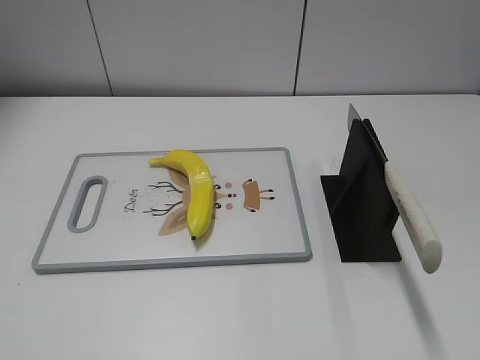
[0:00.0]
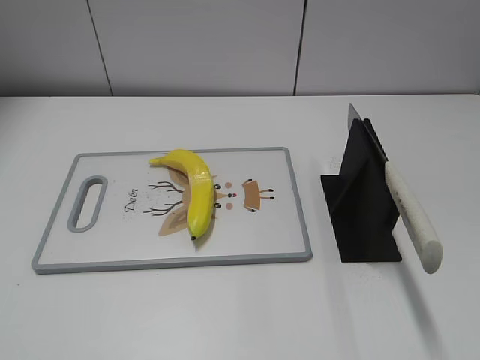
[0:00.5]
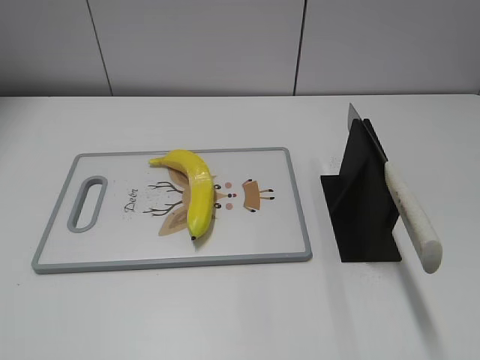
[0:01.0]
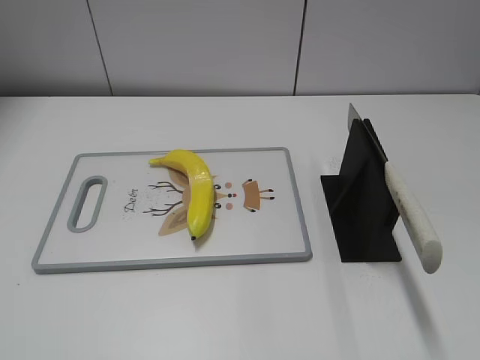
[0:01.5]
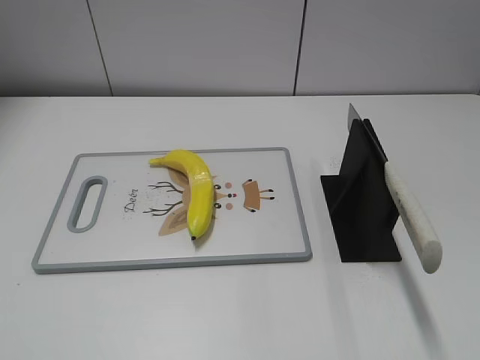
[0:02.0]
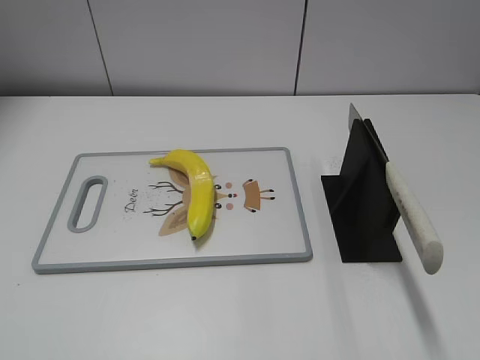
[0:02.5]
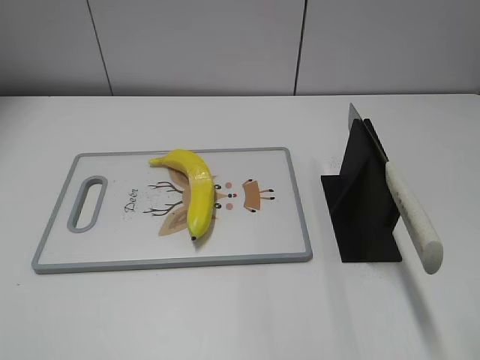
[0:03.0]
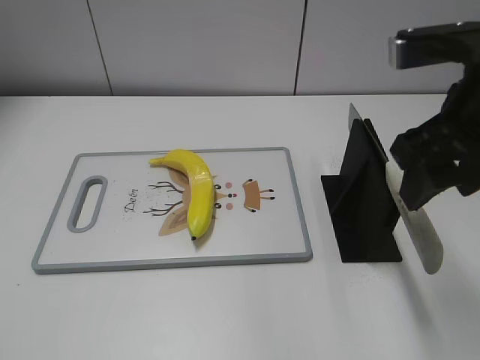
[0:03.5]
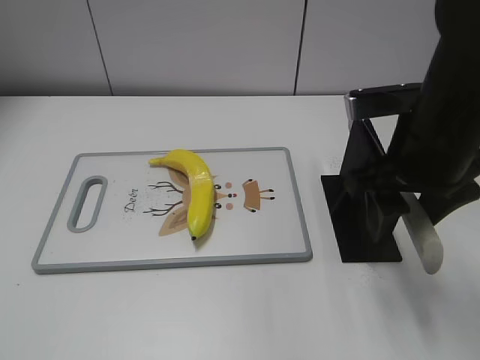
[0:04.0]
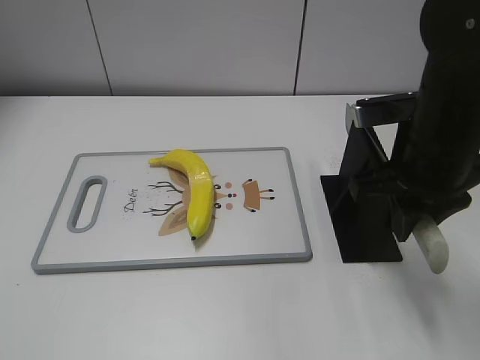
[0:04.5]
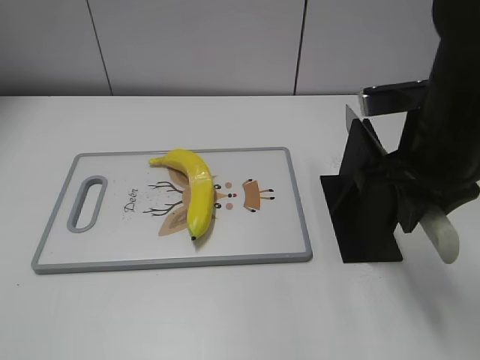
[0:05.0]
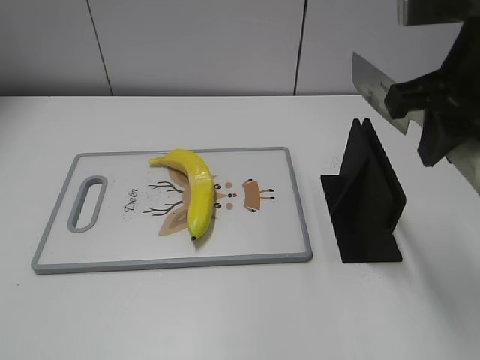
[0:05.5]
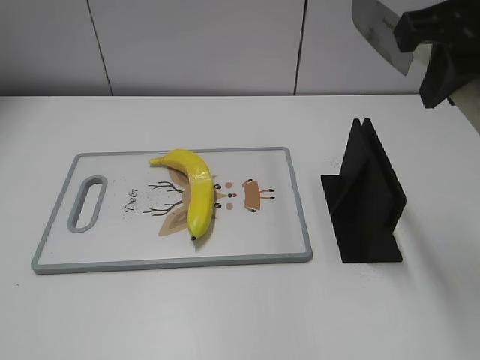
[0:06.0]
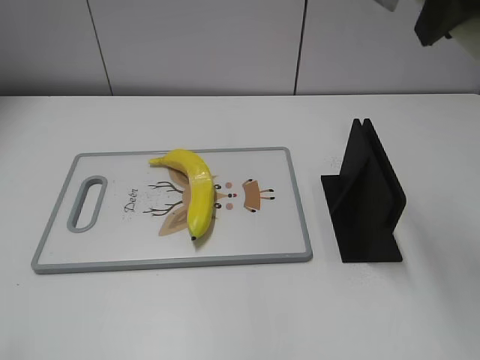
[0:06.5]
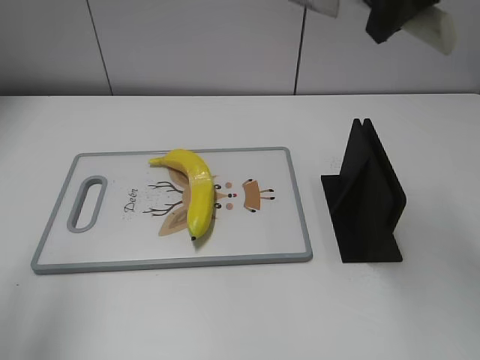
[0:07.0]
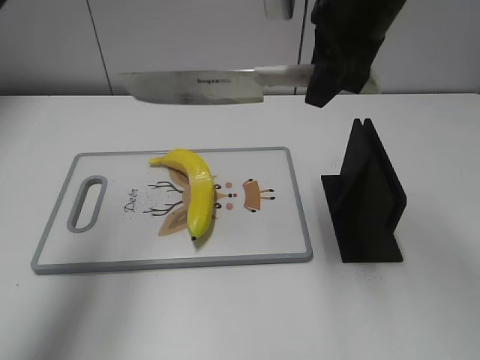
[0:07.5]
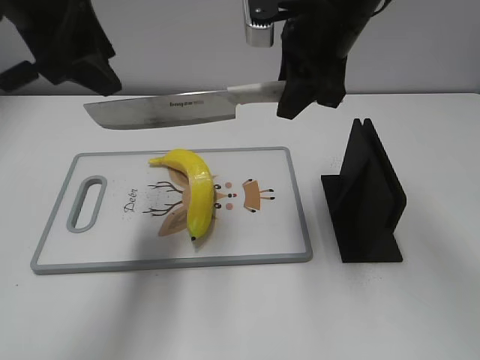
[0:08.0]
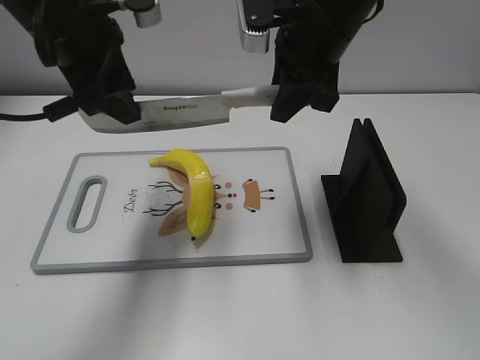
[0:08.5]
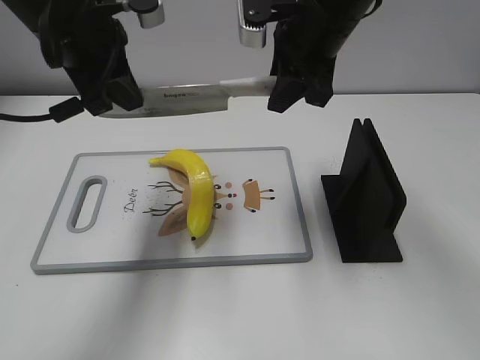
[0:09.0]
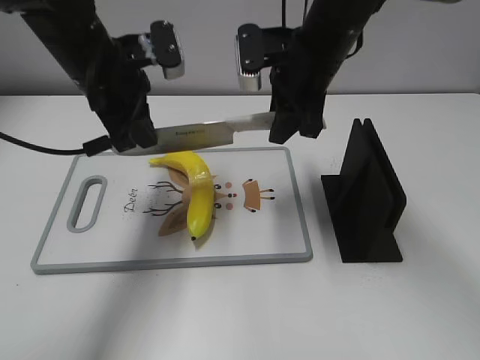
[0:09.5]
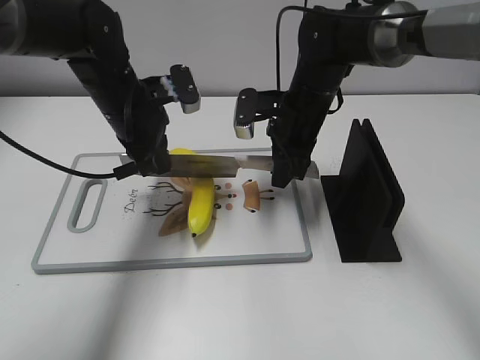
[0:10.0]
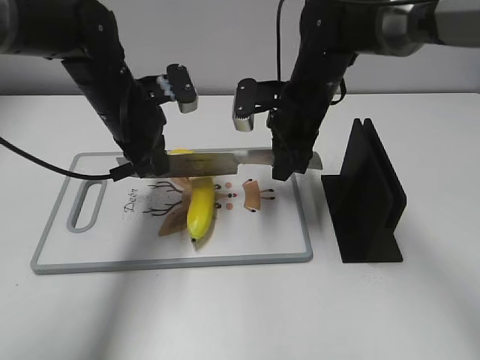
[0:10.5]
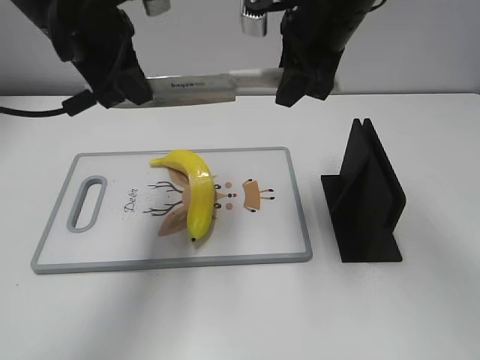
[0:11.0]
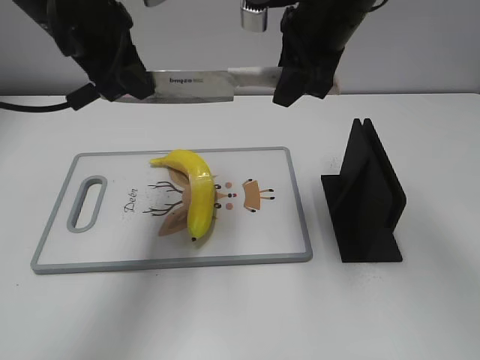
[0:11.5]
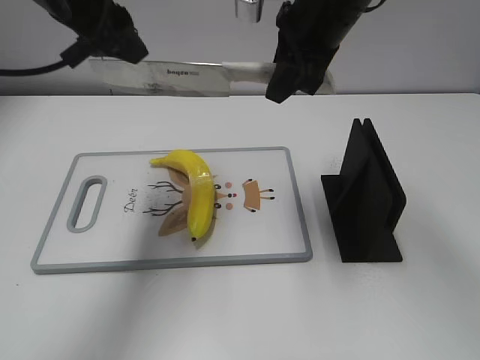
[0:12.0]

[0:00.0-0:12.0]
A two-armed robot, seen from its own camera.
Task of the whole recording: cut plastic banana.
Step, 0:00.0 to 0:05.5: Grab the knife handle with your right hand.
Step, 0:06.0 to 0:11.0: Lift the knife with your right hand.
0:02.0 to 0:04.0: The right gripper is displaced forward and to the left by some 30 cm.
0:04.0 to 0:06.0: The right gripper goes approximately 10 cm upward, and closes up.
0:06.0 to 0:08.0: The right gripper goes about 15 cm forward, to the left and downward. Meanwhile the left gripper moves forward and to the right, about 35 cm.
0:08.0 to 0:10.0: The left gripper travels downward and forward by approximately 20 cm, and closes up. The right gripper is displaced downward by approximately 15 cm.
0:10.0 to 0:12.0: The two grippers go some 15 cm upward. The left gripper opens.

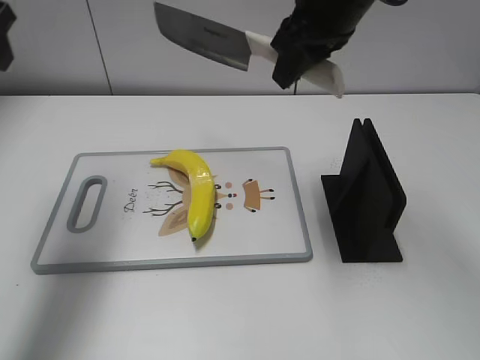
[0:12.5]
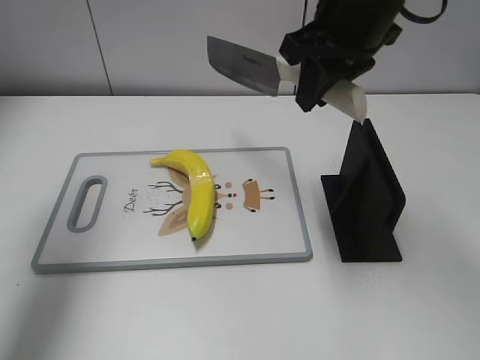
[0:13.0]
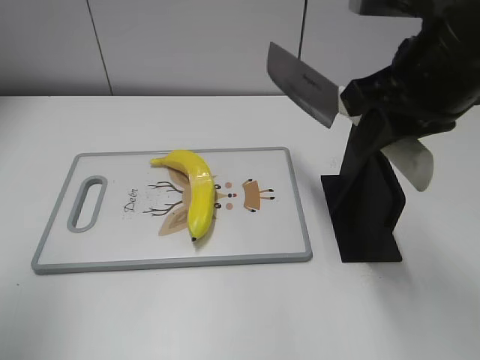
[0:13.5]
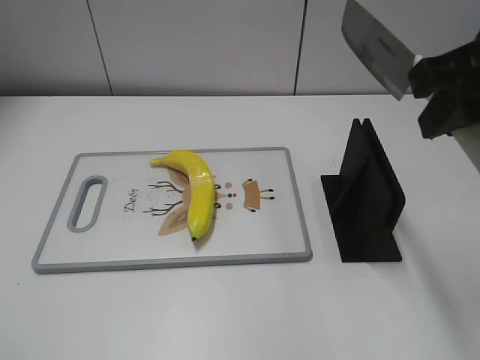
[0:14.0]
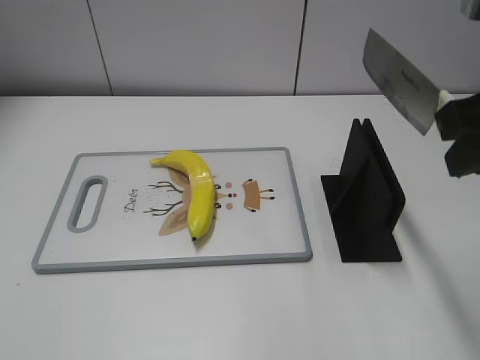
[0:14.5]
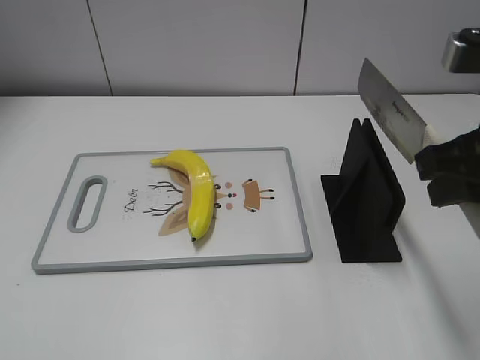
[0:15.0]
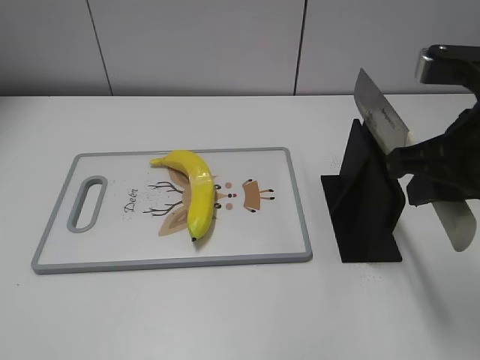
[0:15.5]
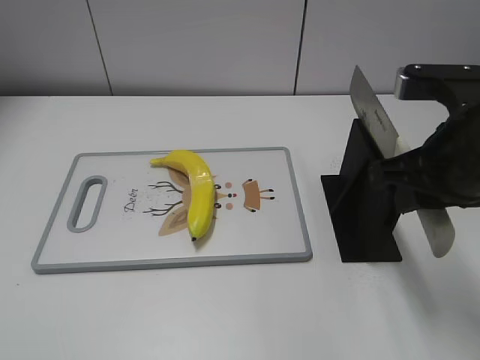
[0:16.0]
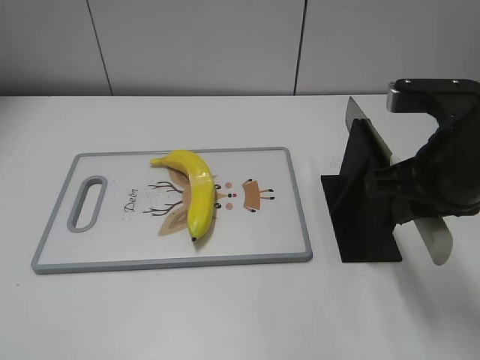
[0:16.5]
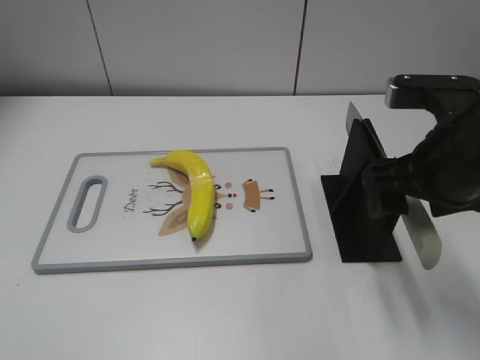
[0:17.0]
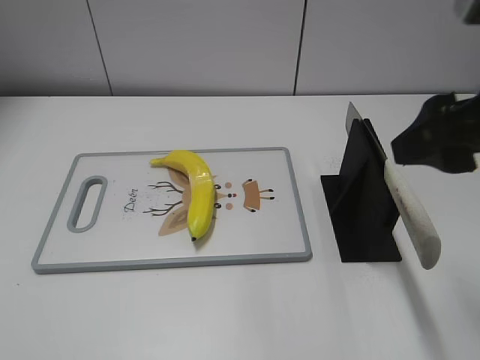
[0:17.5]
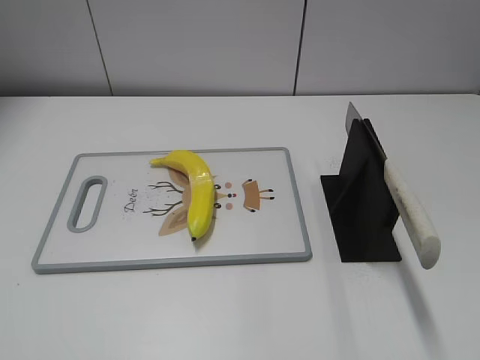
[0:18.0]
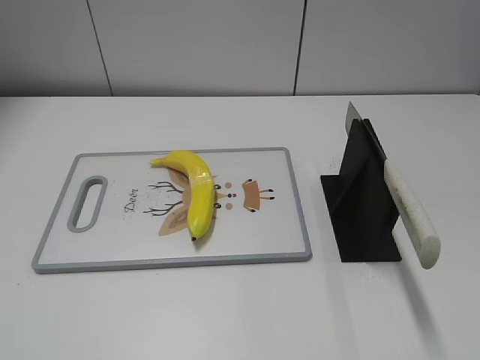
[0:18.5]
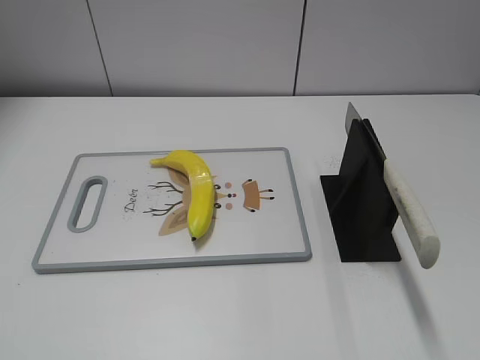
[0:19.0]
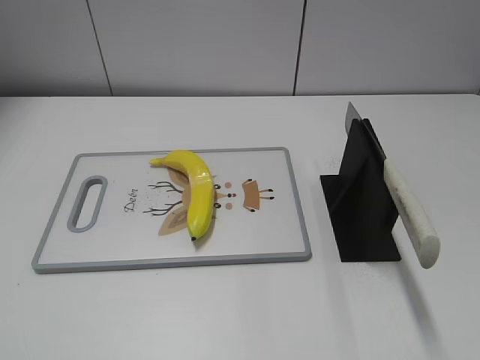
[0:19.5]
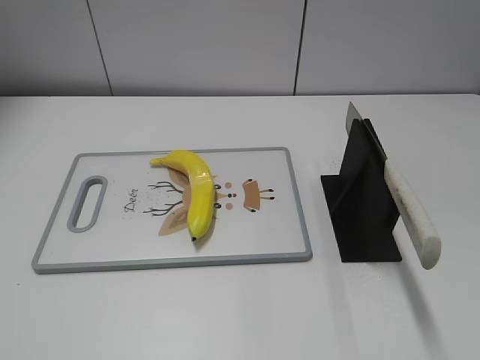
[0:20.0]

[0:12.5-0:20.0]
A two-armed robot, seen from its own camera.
Task of the whole recording: cut plastic banana.
Step, 0:13.5 to 0:14.5: Lift the knife with your right hand.
Step, 0:15.0 to 0:20.0: Place the knife on the storage rack with your right hand.
0:12.5 to 0:14.5: The left gripper is displaced backward by about 35 cm, while the right gripper moves backward and to the right, some 20 cm.
0:14.5 to 0:16.5: The right gripper shifts roughly 10 cm downward.
0:16.5 to 0:18.0: The right gripper shifts approximately 20 cm upward, backward and to the right, and opens up.
